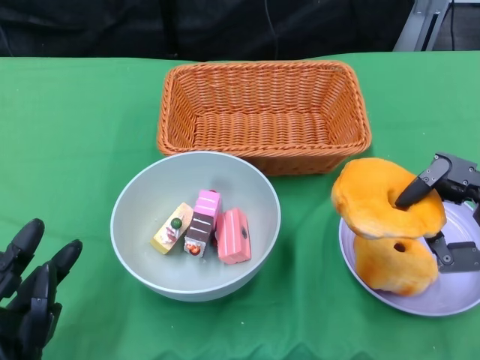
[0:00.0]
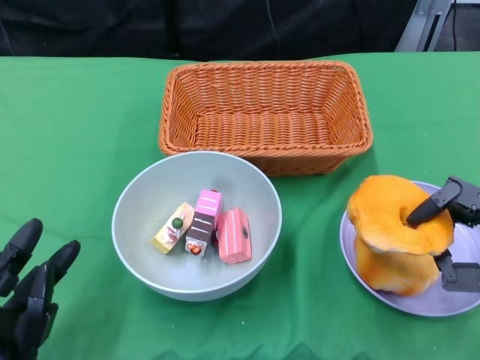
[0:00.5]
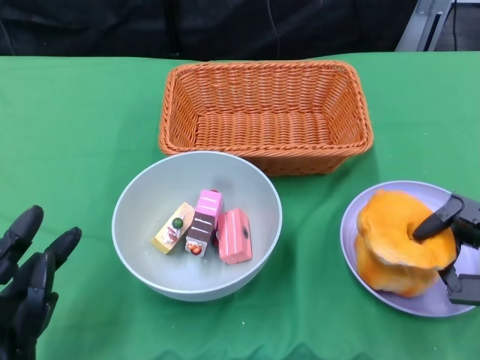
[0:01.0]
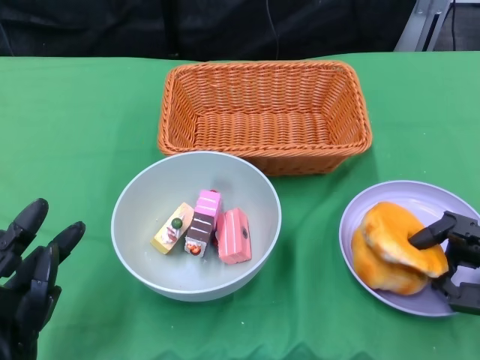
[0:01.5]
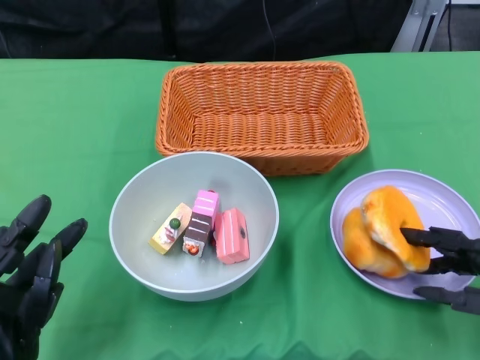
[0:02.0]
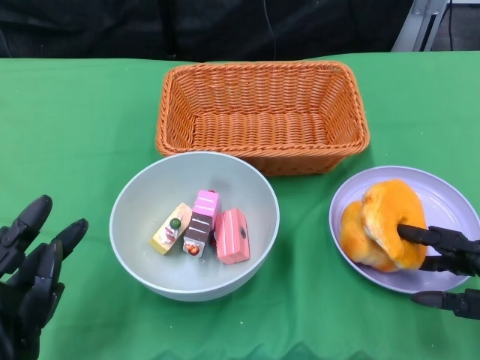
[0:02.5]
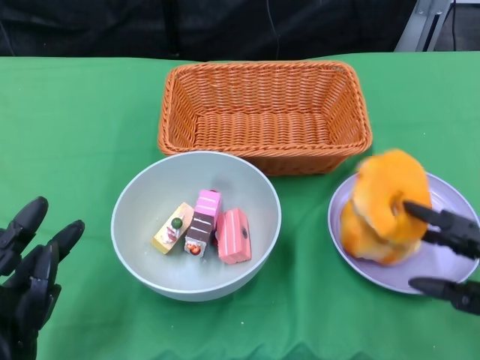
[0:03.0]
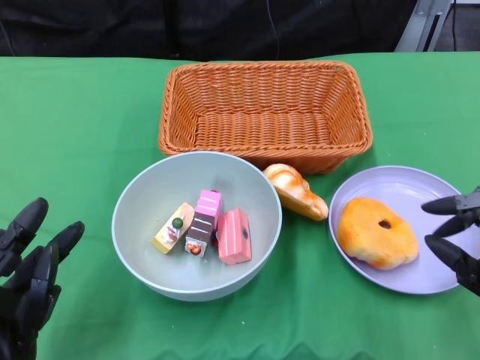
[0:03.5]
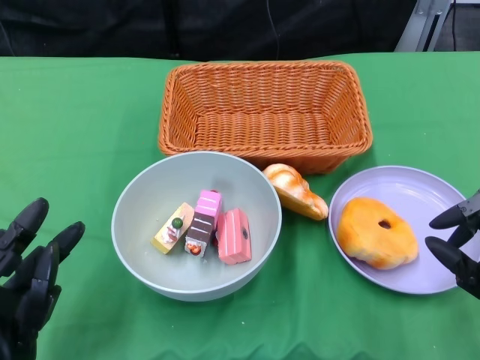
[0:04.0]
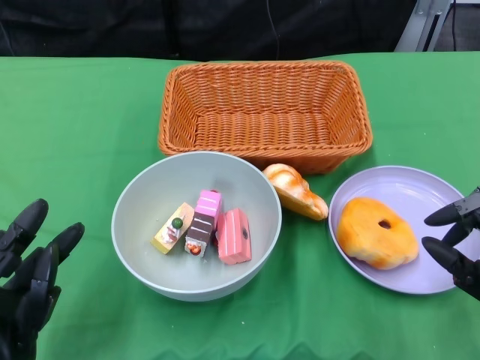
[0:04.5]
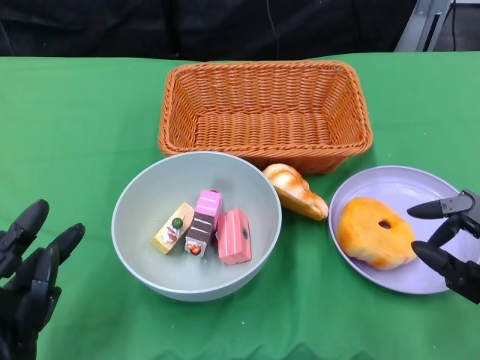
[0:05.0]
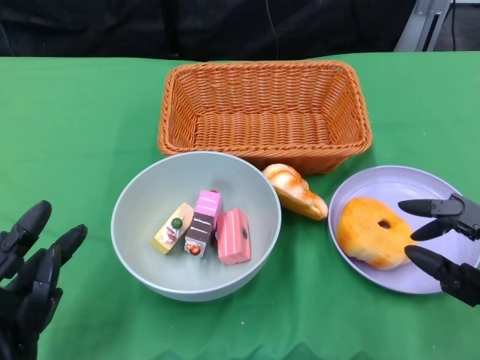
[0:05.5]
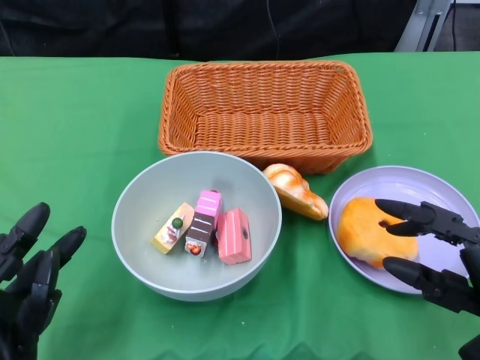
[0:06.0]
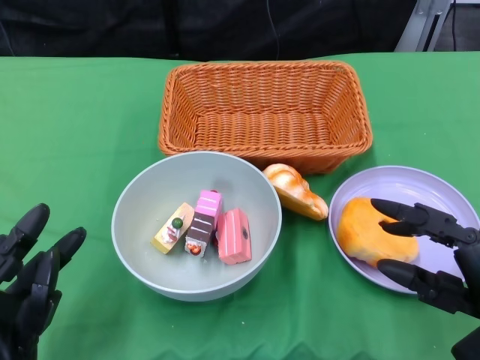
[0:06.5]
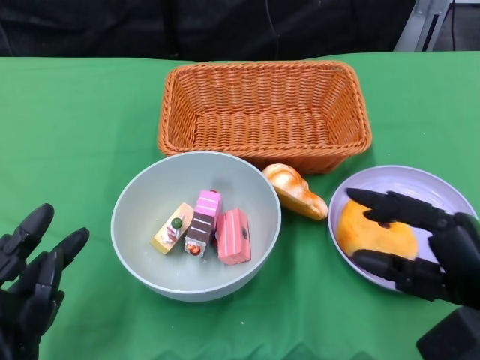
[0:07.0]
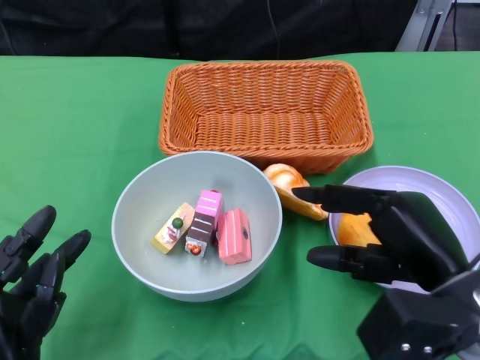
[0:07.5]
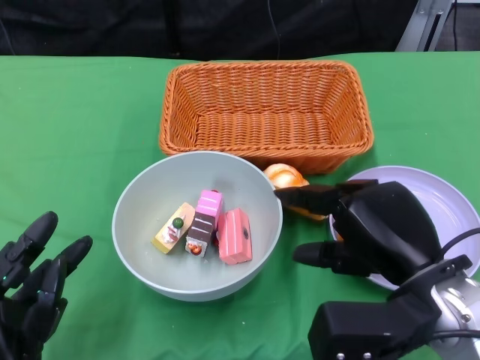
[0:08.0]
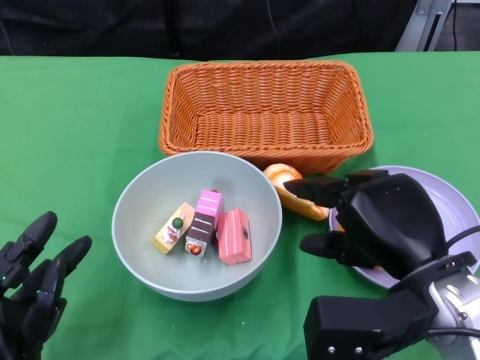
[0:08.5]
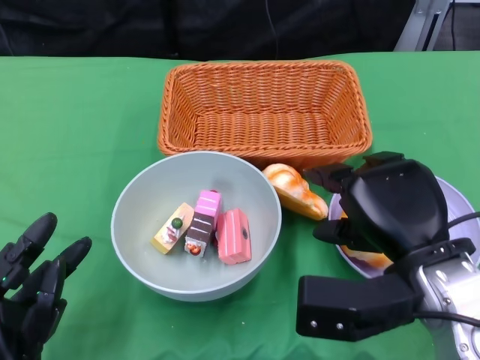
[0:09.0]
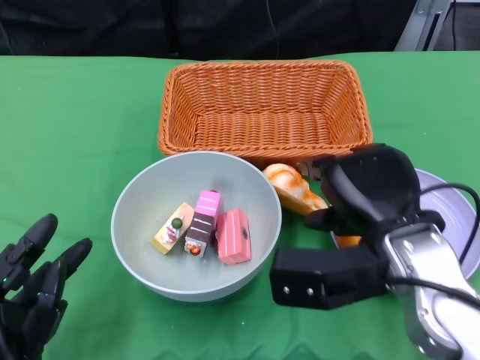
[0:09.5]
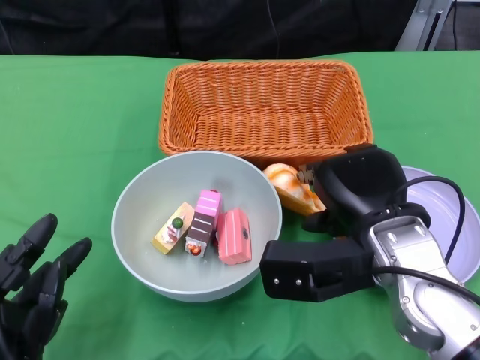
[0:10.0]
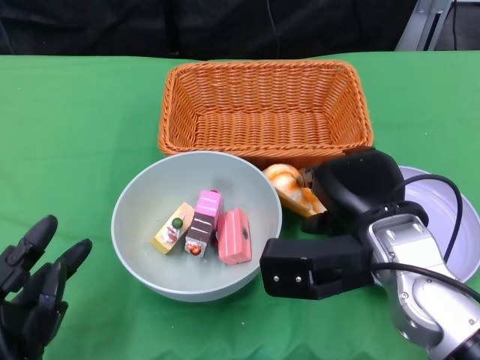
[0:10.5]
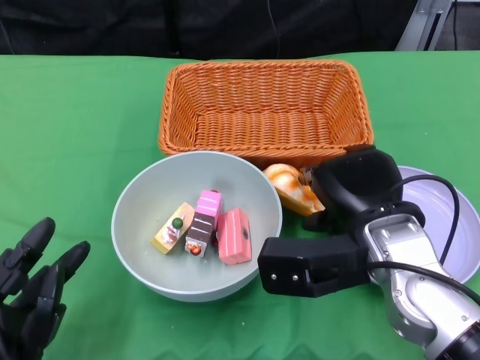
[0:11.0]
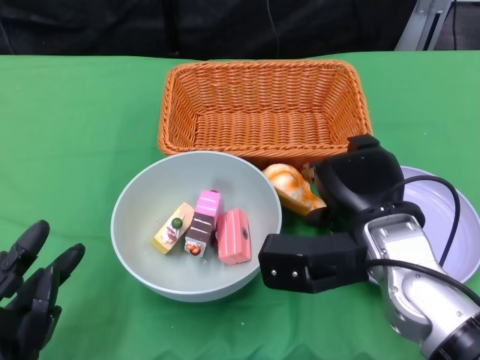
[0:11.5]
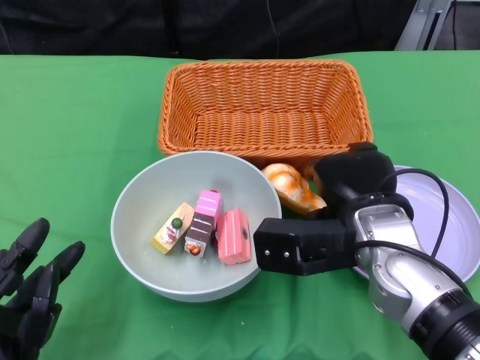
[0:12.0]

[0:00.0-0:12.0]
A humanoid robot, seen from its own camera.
0:00.0 to 0:02.0: The right hand goes roughly 5 cm downward.
0:04.0 to 0:06.0: The hands move only a little.
0:06.0 to 0:08.0: The right hand is displaced to the left and upward by approximately 10 cm.
0:08.0 to 0:10.0: The right hand shifts by some 5 cm.
0:10.0 to 0:12.0: The hands move only a little.

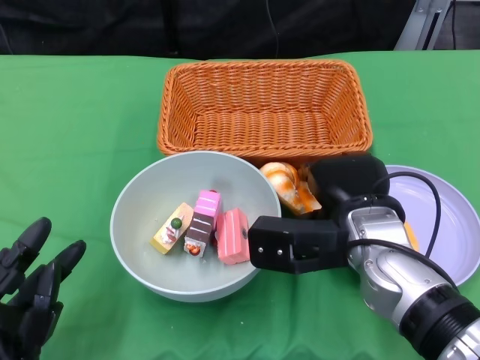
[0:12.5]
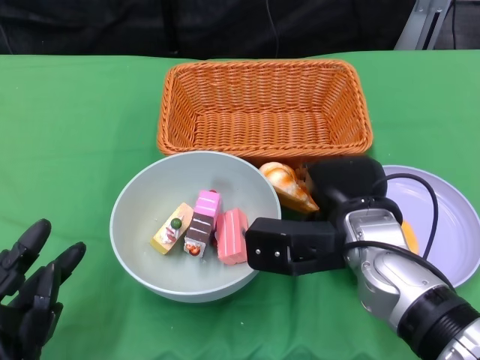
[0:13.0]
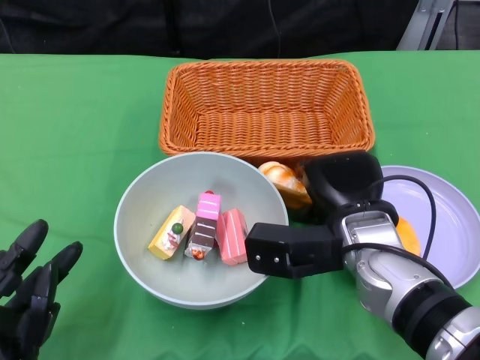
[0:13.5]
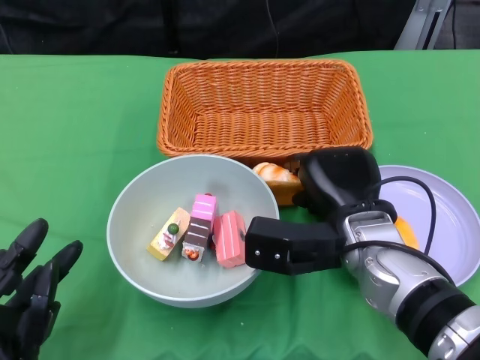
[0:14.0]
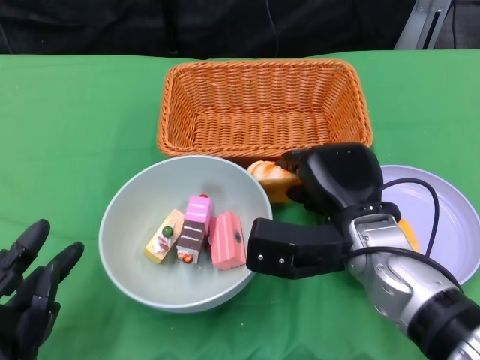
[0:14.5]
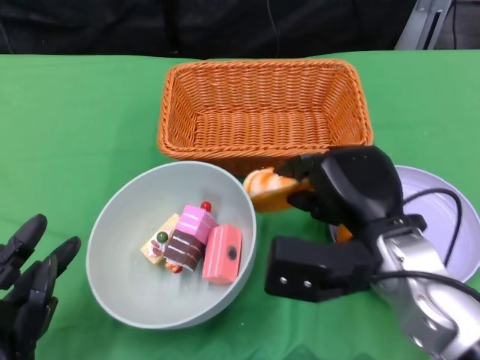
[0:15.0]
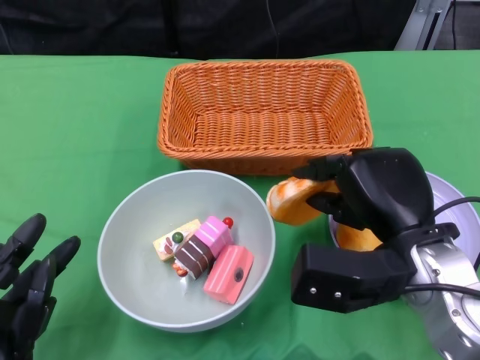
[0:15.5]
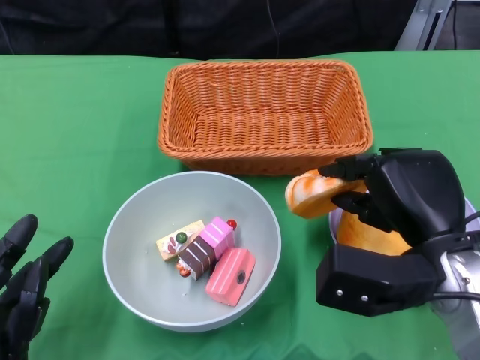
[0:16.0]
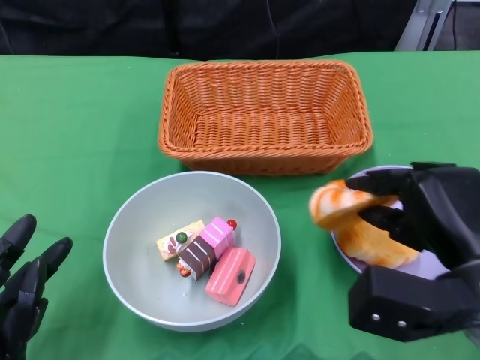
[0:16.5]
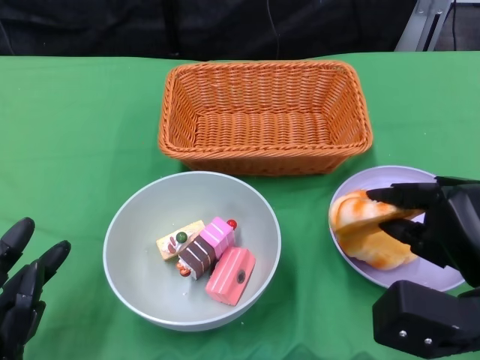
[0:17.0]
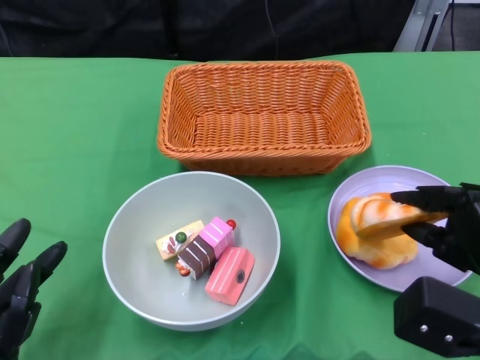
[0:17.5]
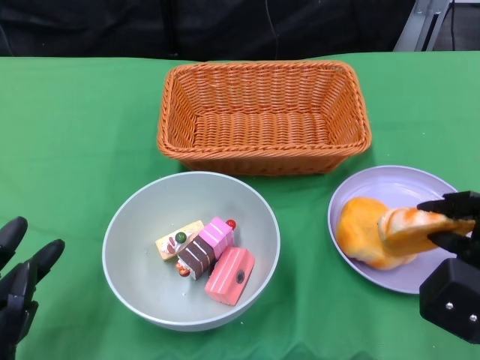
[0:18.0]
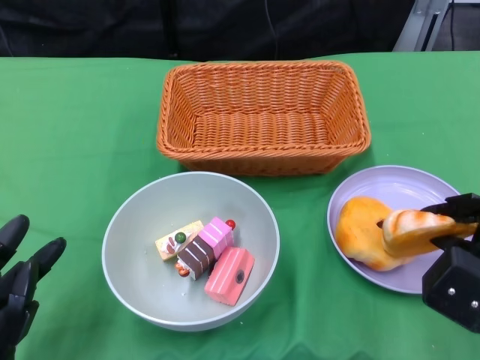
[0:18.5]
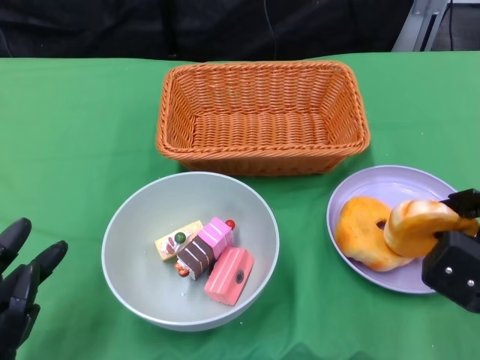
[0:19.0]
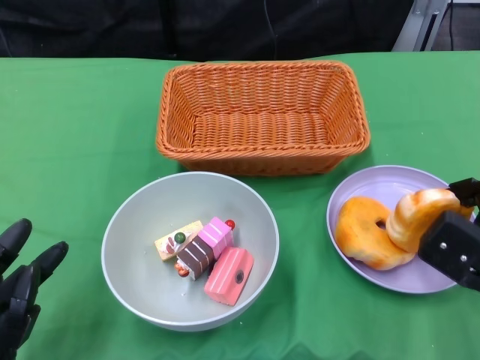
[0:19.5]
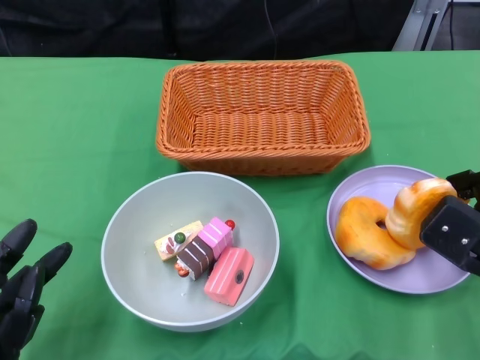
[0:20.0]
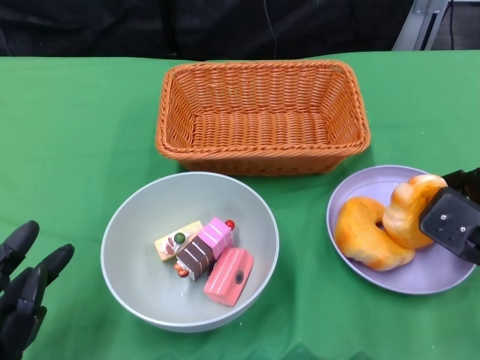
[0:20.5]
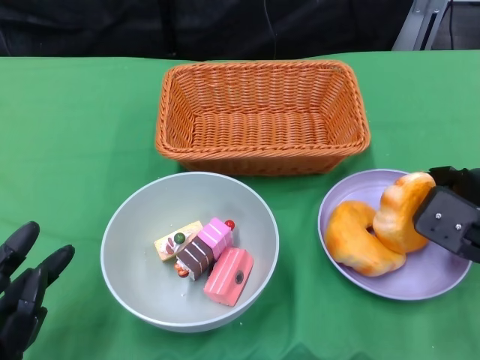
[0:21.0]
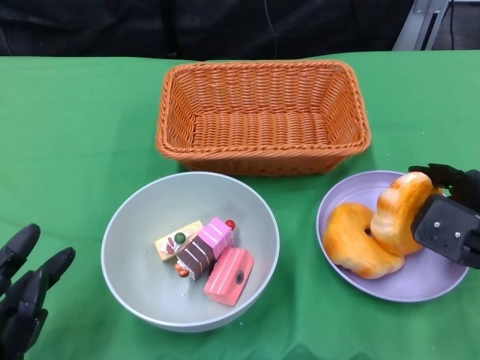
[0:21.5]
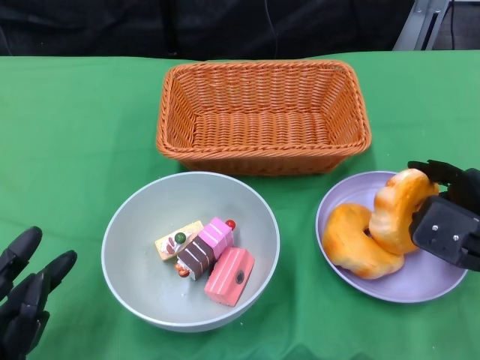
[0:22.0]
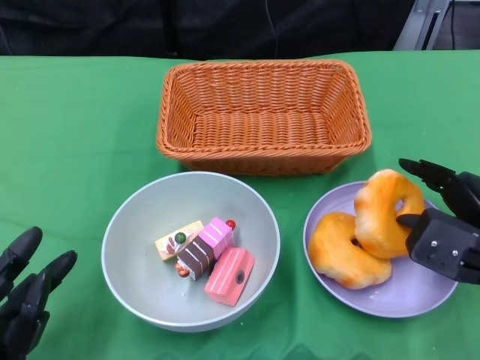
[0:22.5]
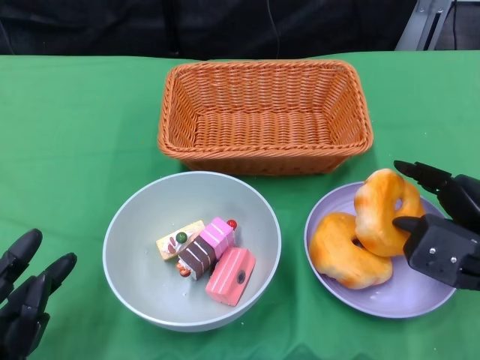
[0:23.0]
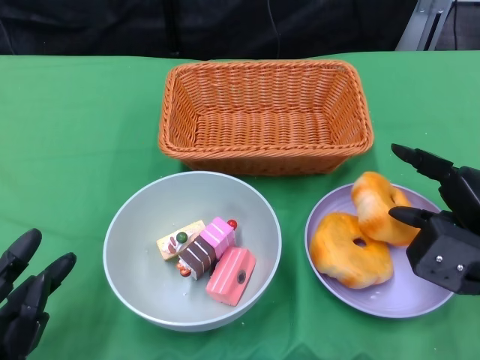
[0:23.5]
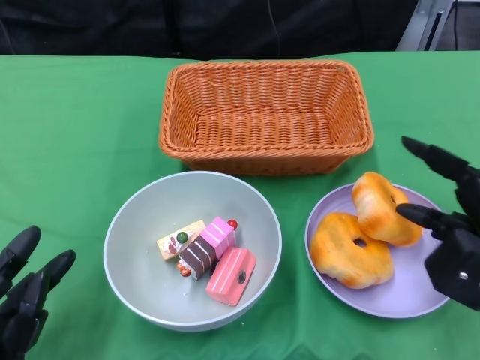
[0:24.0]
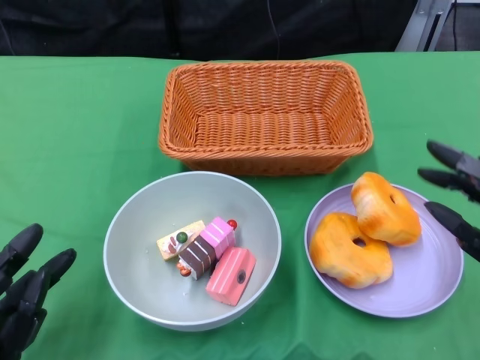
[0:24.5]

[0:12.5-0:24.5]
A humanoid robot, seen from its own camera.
0:14.5 to 0:16.5: The right hand heads to the right and backward, covering approximately 10 cm.
0:16.5 to 0:18.5: The right hand is displaced to the right by approximately 5 cm.
0:18.5 to 0:20.5: The right hand travels forward by some 5 cm.
0:20.5 to 0:22.5: There are only small adjustments of the hands.
0:22.5 to 0:24.5: The right hand heads backward, covering about 5 cm.

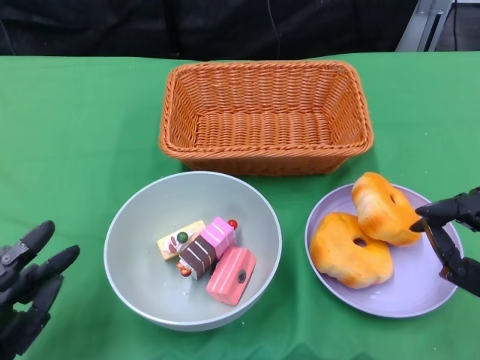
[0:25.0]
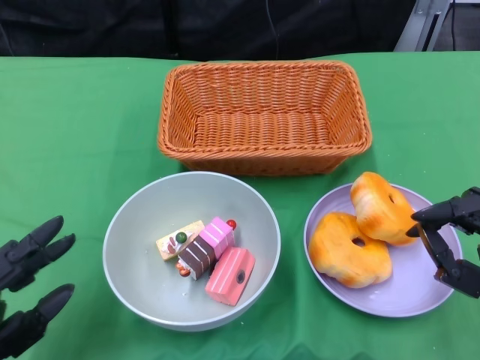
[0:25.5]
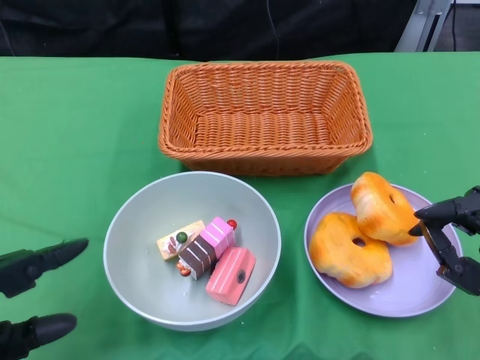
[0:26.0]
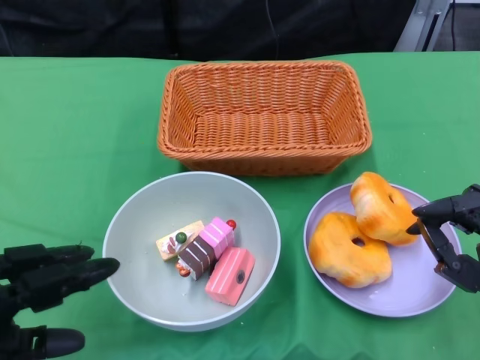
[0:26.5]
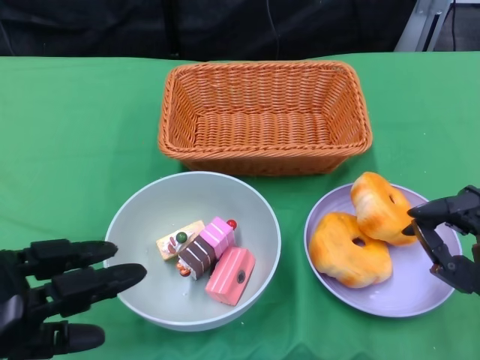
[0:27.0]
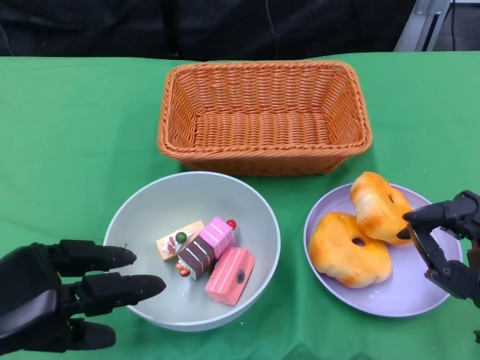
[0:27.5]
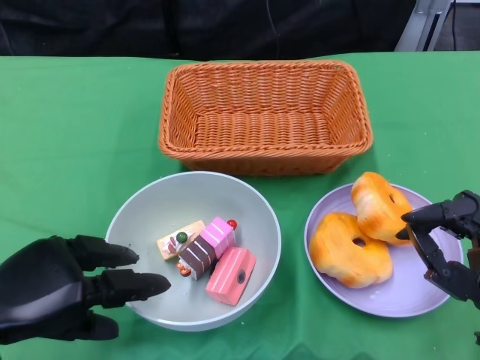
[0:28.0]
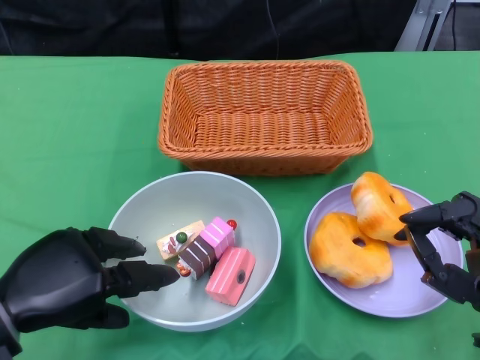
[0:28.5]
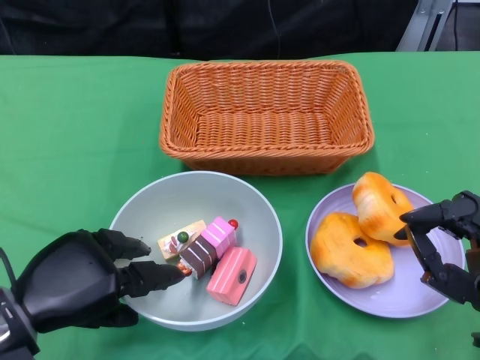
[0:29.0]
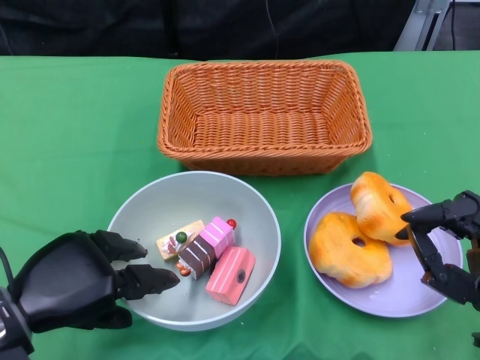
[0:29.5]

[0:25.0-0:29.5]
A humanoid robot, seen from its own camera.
0:25.0 to 0:27.0: The left hand moves upward, approximately 10 cm.
0:27.0 to 0:29.5: The left hand travels forward by roughly 5 cm.
